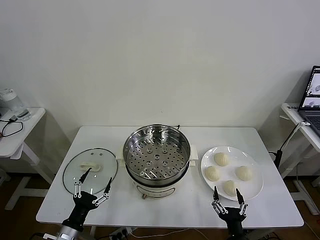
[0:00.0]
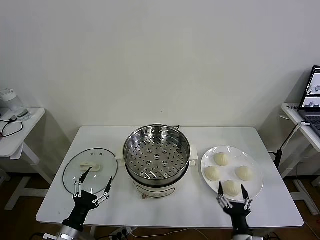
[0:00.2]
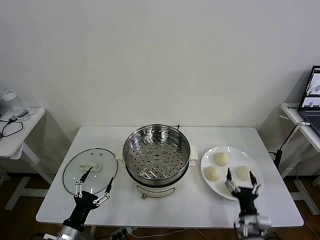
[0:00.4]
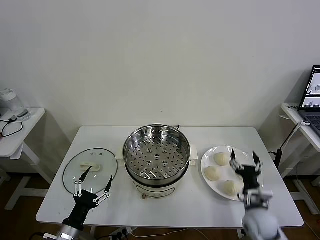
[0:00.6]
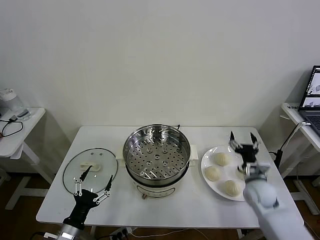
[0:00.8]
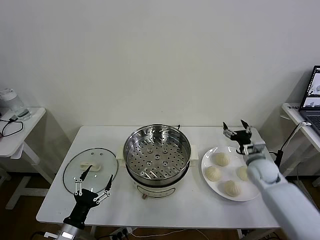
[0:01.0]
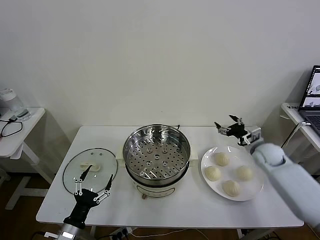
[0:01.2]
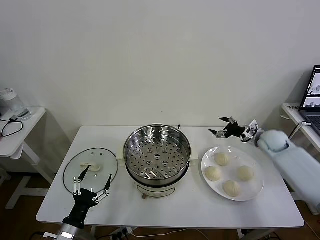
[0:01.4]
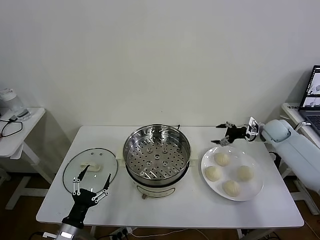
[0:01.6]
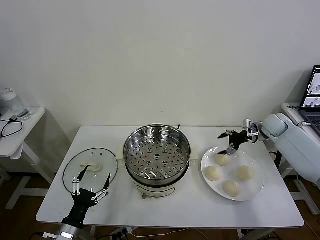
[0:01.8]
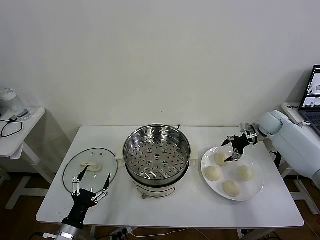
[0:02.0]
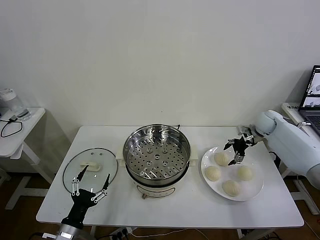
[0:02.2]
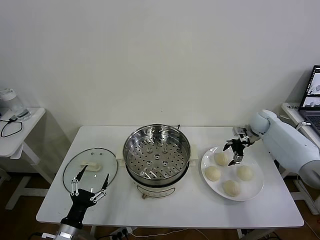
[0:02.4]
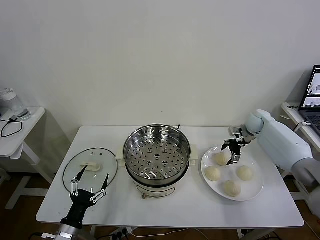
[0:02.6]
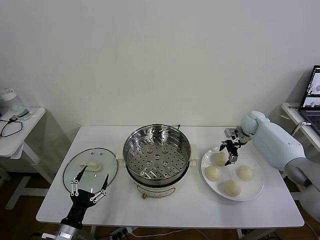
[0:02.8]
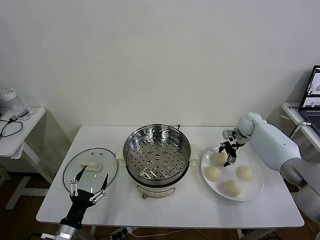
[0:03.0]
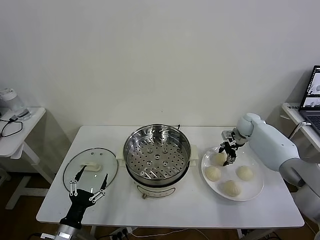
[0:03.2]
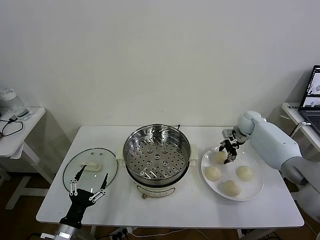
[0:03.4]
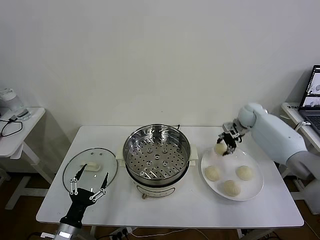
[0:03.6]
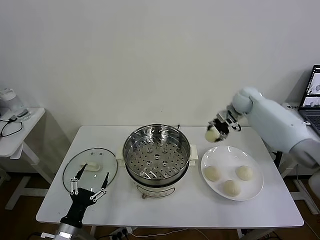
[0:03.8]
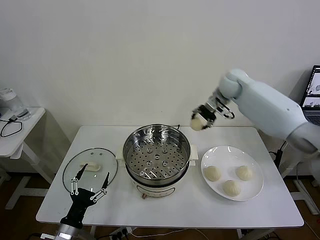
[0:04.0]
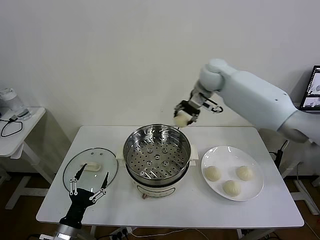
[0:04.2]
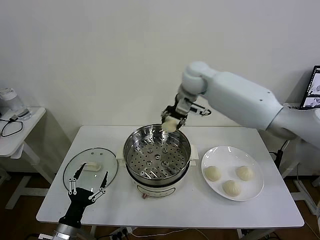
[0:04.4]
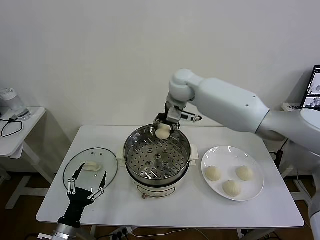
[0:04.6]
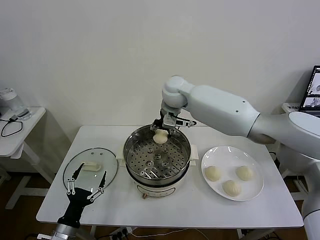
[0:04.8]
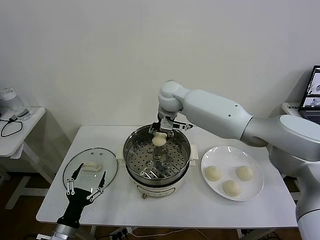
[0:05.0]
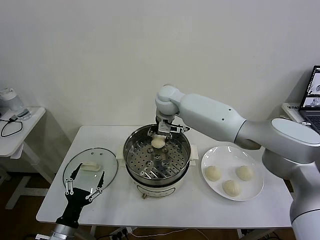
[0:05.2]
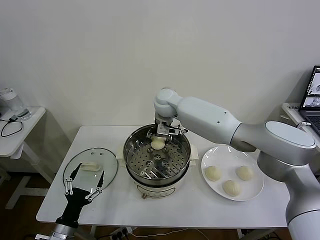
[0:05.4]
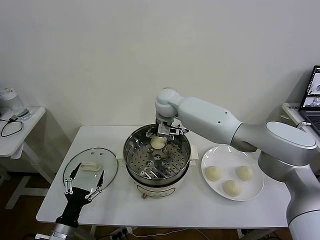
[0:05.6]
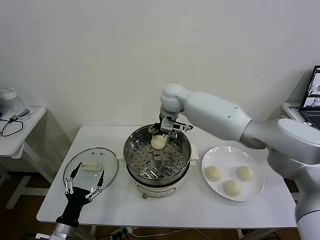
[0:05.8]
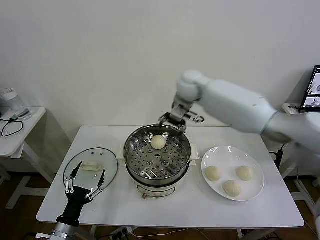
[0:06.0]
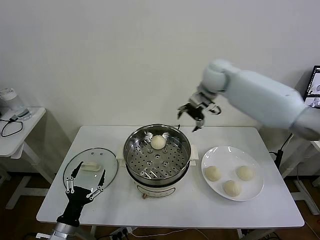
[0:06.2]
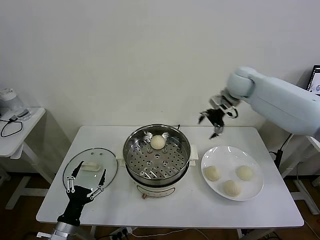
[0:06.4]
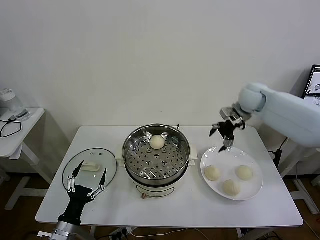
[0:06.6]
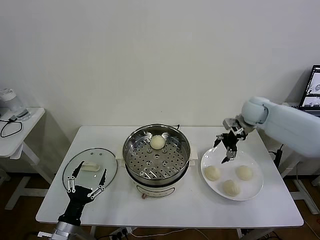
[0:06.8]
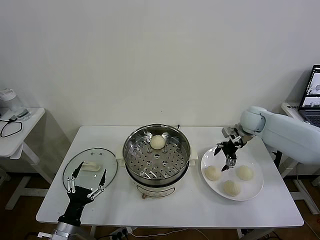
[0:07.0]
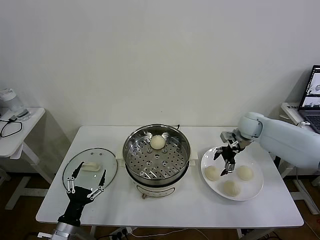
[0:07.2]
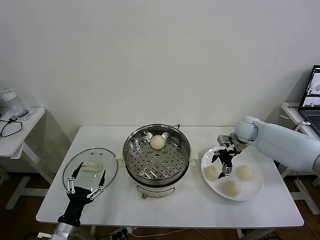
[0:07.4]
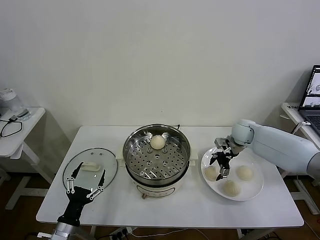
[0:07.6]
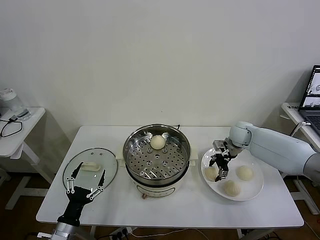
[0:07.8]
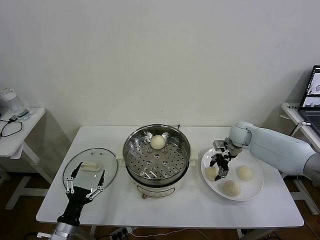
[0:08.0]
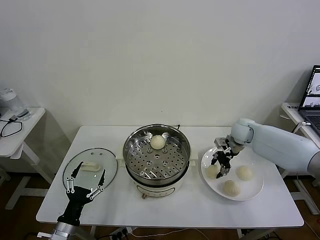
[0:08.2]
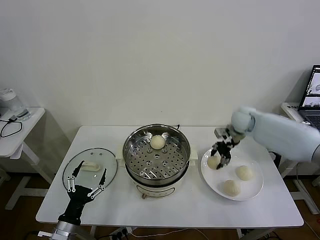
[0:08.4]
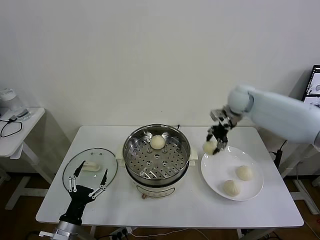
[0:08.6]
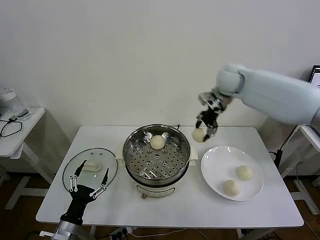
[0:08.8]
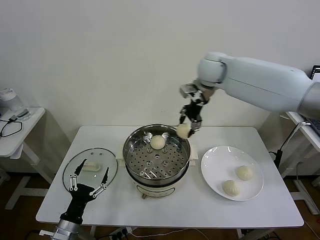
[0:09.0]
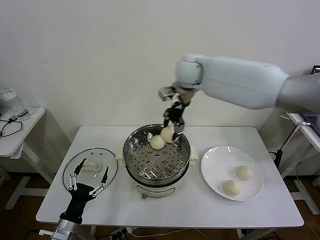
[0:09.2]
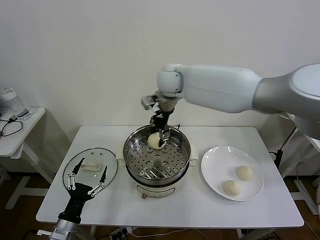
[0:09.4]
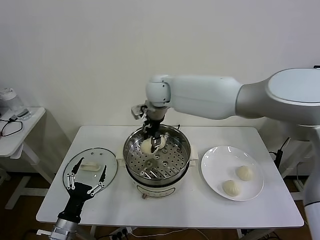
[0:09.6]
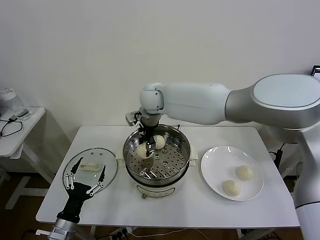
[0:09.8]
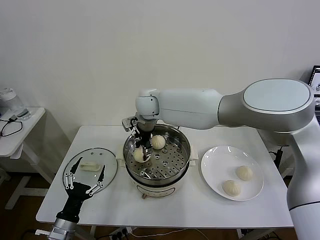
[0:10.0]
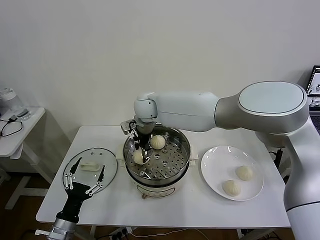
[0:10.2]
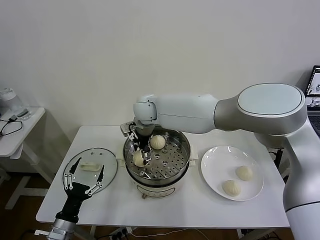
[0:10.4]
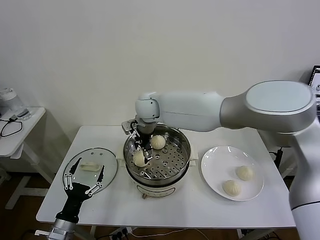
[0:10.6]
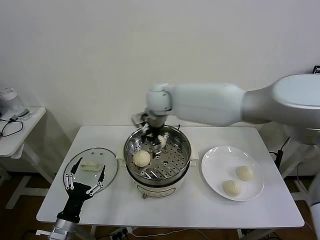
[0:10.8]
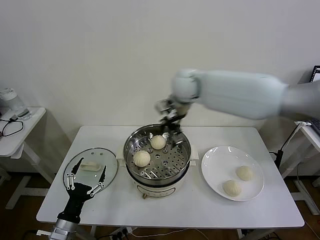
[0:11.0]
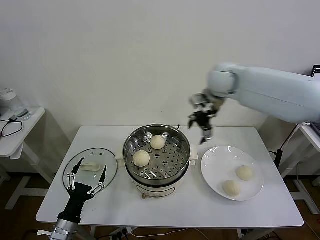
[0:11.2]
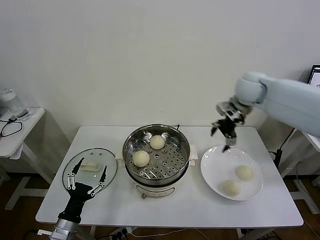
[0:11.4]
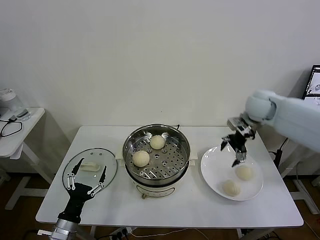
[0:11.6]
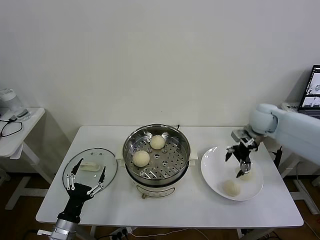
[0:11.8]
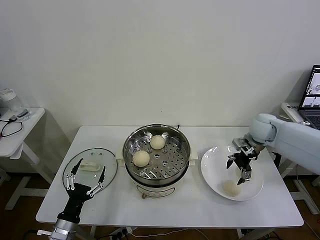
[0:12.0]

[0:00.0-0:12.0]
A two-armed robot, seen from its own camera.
Task of the whole recording: take steamed baozi put them in steamer then cover it.
Step, 0:00.0 to 0:03.2: Grasp the baozi in the plate with right gripper.
Step, 0:03.4 to 0:05.6: Place the baozi on the steamer with right gripper.
Step, 0:05.8 to 0:08.0: Grasp the baozi in the plate with right gripper.
Step, 0:08.2 to 0:10.4: Place the baozi on the steamer with right gripper.
0:01.6 to 0:03.0: The right gripper travels to the left and forward by about 10 cm, and closes.
0:03.0 to 0:04.4: The right gripper moves to the left and upward, about 35 cm, and closes its fingers.
0:04.4 to 0:06.0: The right gripper opens its fingers.
0:06.0 to 0:07.6: The right gripper shifts approximately 30 cm downward and to the right.
0:07.6 to 0:09.0: The right gripper moves upward and to the left, roughly 30 cm, and closes its fingers.
0:09.0 to 0:10.4: The right gripper travels to the left and downward by approximately 20 cm, and opens up.
0:10.4 to 0:12.0: The right gripper shifts approximately 40 cm to the right.

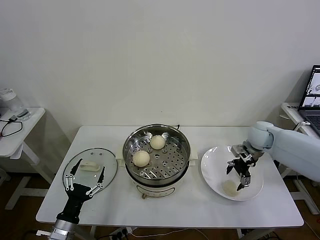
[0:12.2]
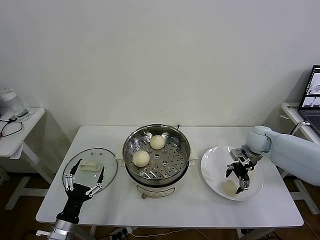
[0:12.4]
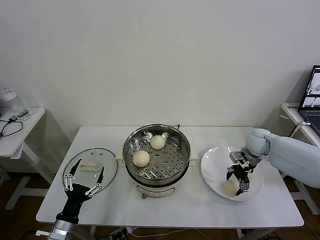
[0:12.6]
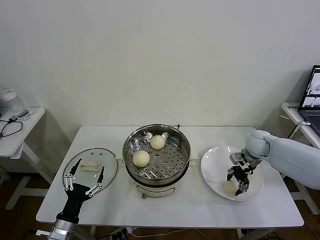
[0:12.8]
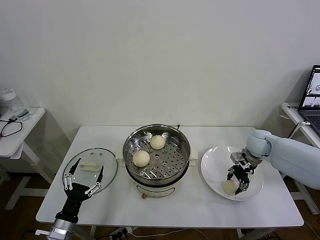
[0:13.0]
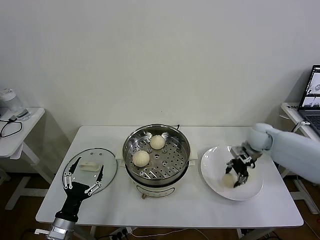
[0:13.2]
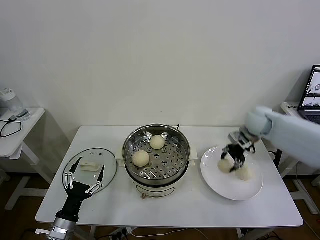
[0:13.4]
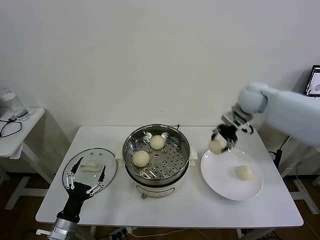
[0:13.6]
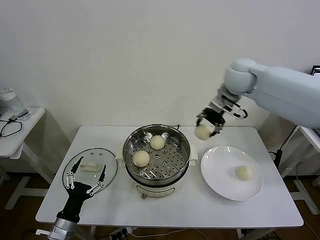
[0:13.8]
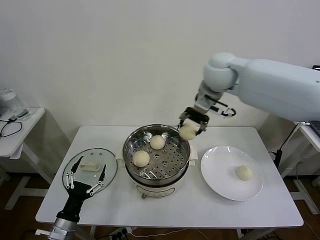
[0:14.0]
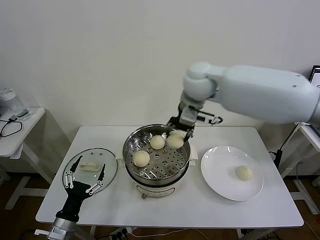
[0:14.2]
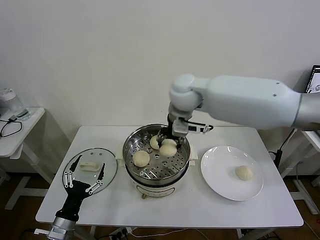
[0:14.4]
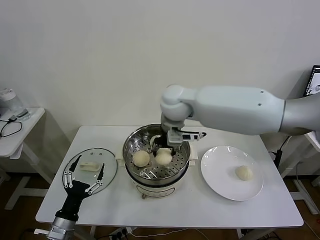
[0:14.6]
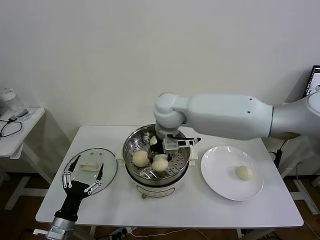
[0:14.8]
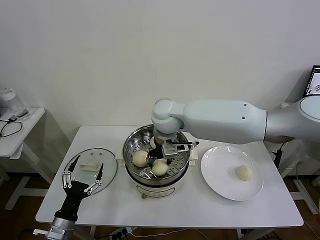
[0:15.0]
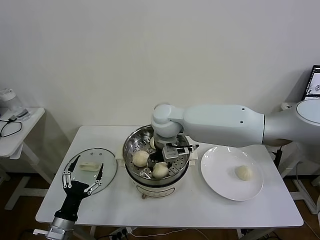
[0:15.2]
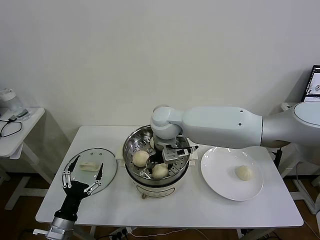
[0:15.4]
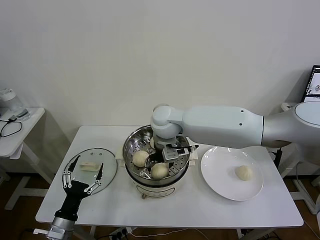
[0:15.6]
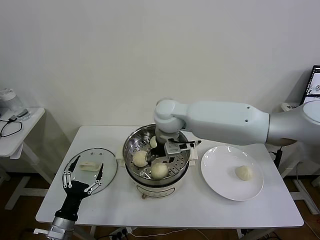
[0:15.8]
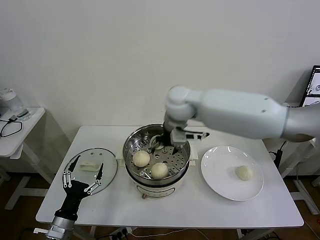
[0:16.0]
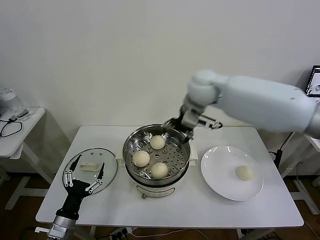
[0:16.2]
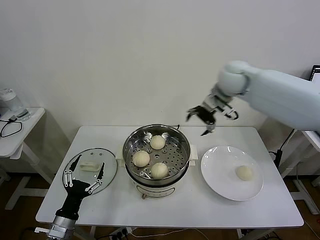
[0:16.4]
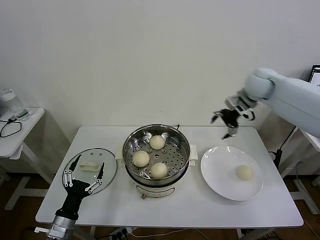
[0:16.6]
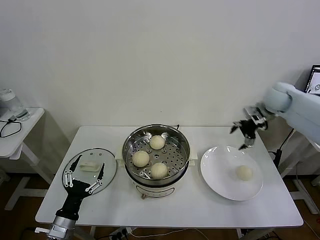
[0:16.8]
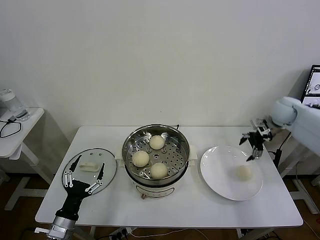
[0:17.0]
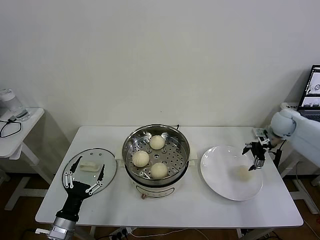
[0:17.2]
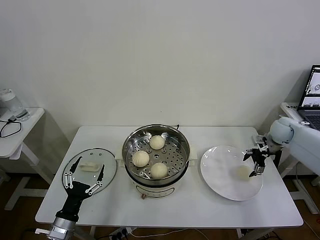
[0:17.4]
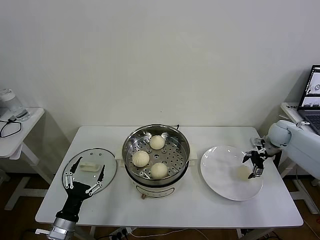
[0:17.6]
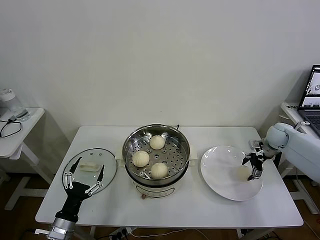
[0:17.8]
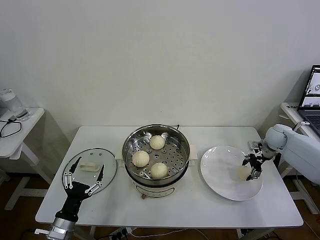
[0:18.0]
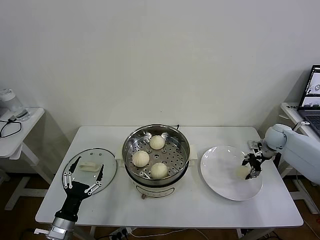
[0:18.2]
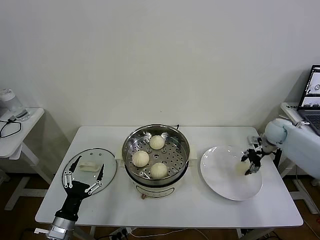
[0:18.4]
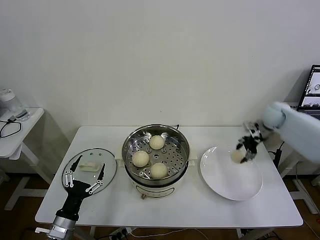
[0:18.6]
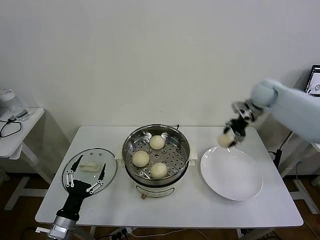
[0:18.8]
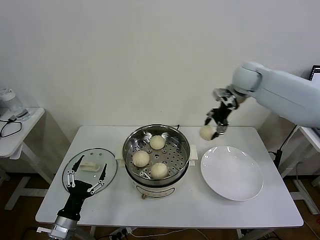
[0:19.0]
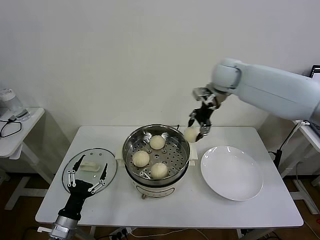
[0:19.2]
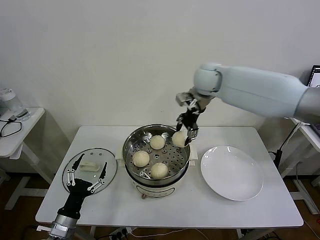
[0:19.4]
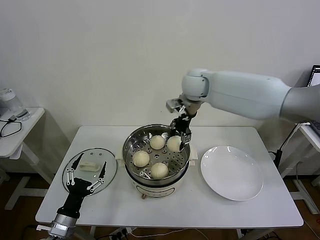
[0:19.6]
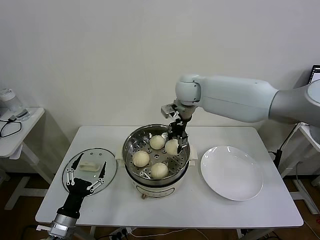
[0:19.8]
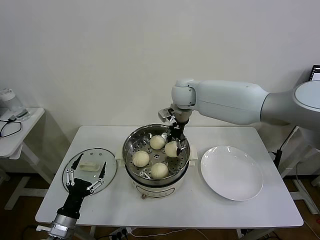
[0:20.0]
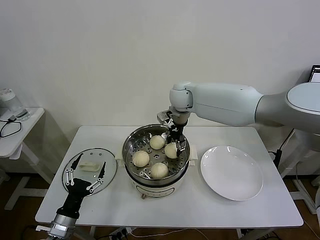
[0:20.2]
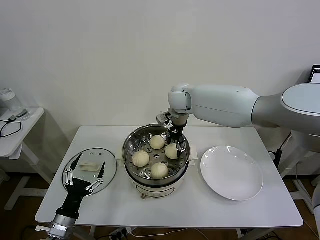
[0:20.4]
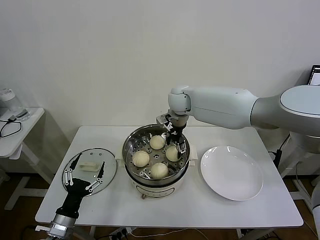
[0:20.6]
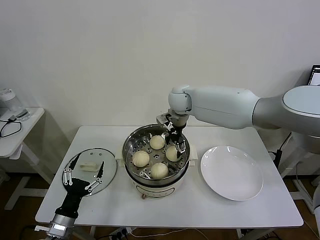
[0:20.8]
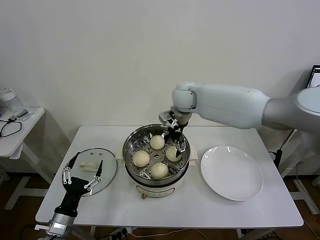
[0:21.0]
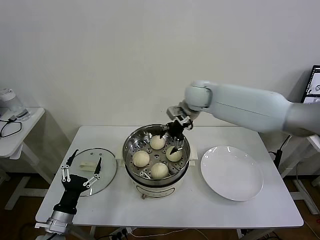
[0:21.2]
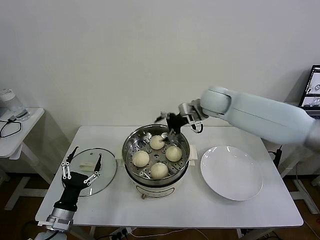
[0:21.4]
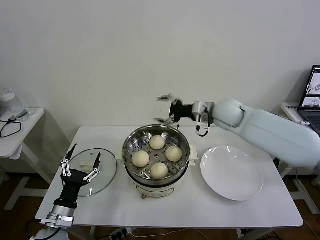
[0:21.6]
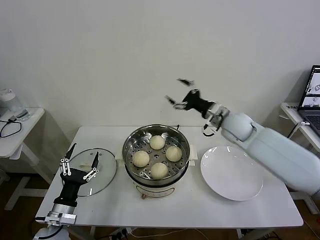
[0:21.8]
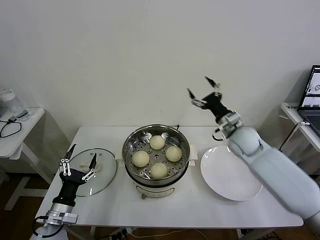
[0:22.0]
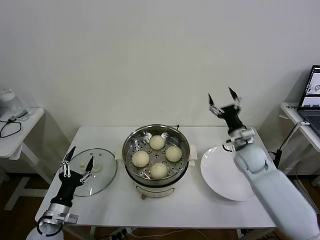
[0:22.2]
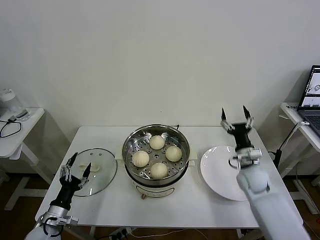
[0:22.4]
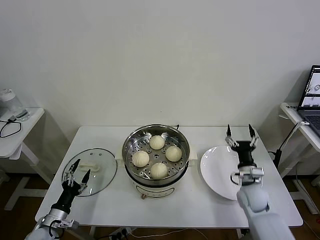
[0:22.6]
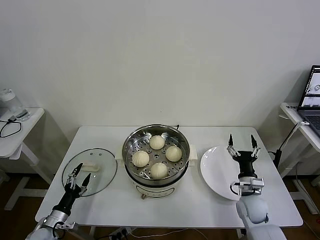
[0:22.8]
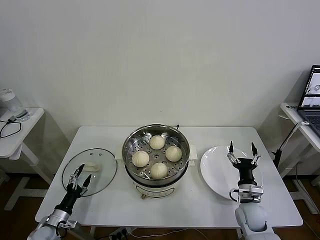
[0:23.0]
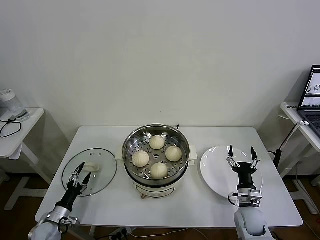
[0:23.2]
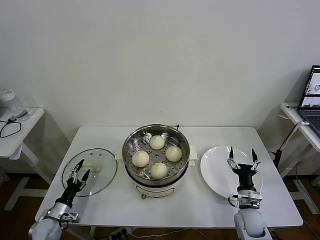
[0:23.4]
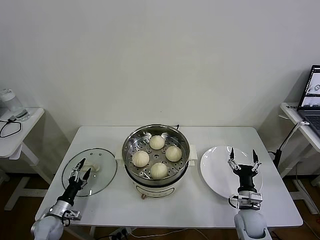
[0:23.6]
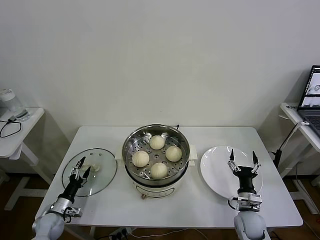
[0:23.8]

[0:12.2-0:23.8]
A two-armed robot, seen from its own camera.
Task of the whole recording: take steamed baozi put them in steamer then cover it.
Step, 0:13.2 to 0:15.6: Place the baozi on the steamer with right gripper.
Step, 0:15.8 to 0:18.2: Grasp the baozi in the plate with right gripper.
Step, 0:18.4 to 0:20.6: Place the baozi on the steamer with right gripper.
0:12.2 to 0:13.6: The right gripper travels upward and to the left by approximately 20 cm, and closes.
0:13.6 to 0:15.0: The right gripper moves to the left, about 25 cm.
0:15.0 to 0:16.6: The right gripper heads to the right, covering about 30 cm, and opens its fingers.
0:16.6 to 0:18.0: The right gripper heads downward and to the right, covering about 25 cm, and closes.
0:18.0 to 0:19.4: The right gripper moves to the left and upward, some 40 cm.
0:19.4 to 0:21.0: The right gripper heads downward and to the left, covering approximately 10 cm, and opens up.
0:21.0 to 0:22.4: The left gripper shifts by approximately 5 cm; the right gripper heads to the right, downward and backward, covering approximately 40 cm.
0:22.4 to 0:23.8: The left gripper shifts roughly 15 cm downward, forward and to the left. The right gripper travels backward and downward by about 15 cm.
